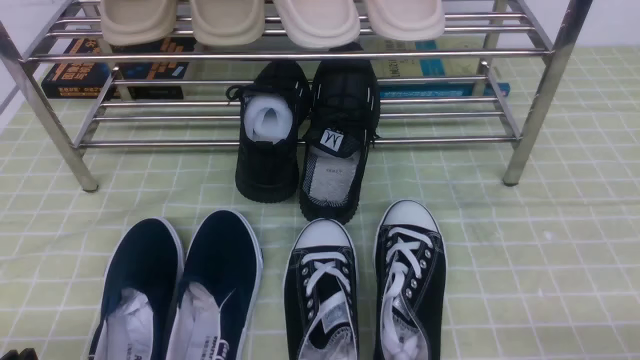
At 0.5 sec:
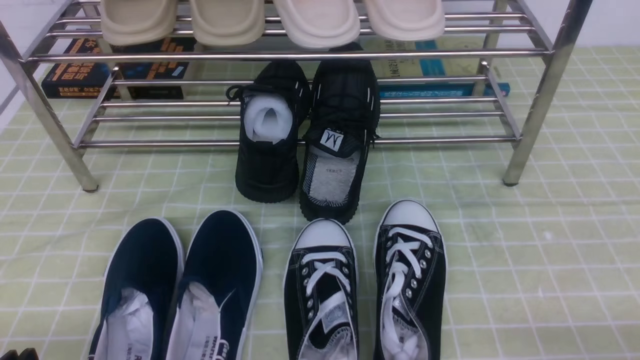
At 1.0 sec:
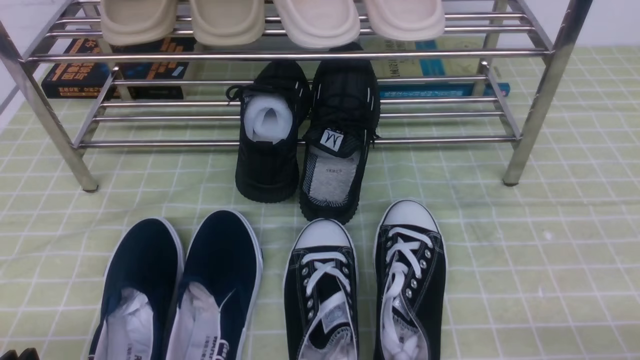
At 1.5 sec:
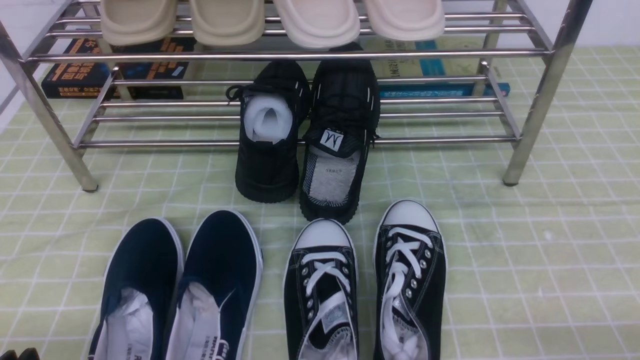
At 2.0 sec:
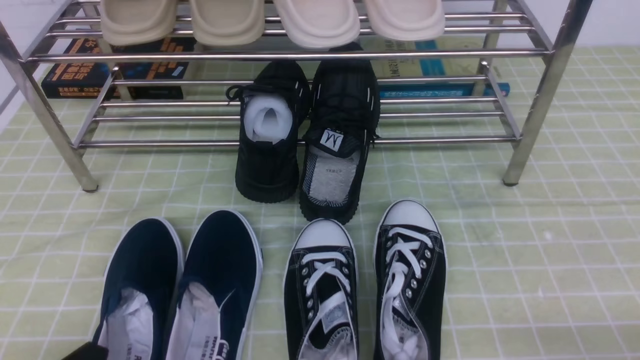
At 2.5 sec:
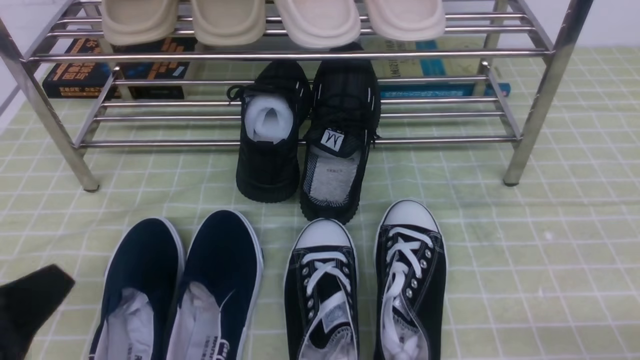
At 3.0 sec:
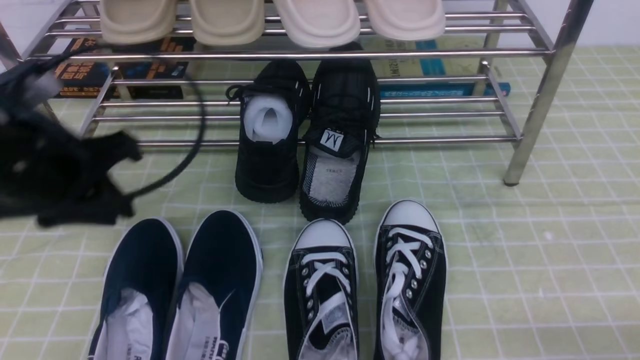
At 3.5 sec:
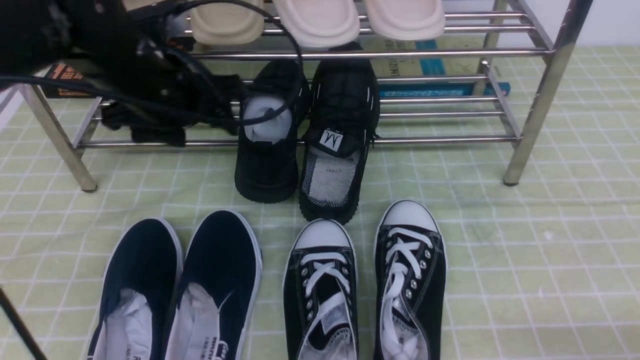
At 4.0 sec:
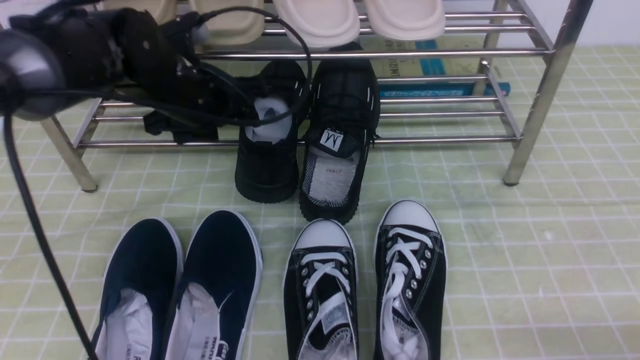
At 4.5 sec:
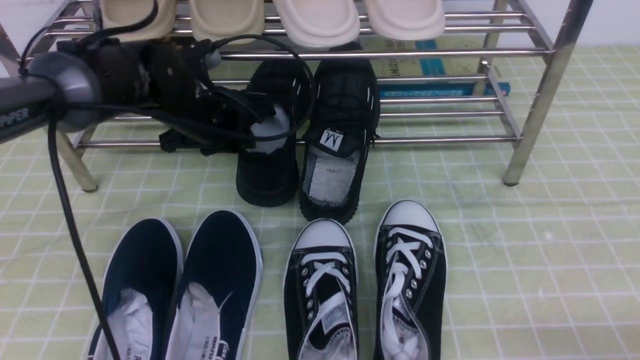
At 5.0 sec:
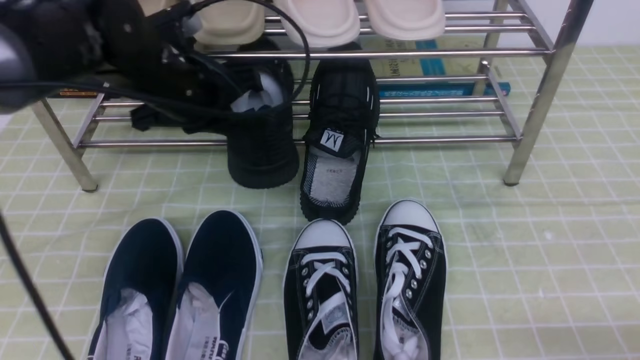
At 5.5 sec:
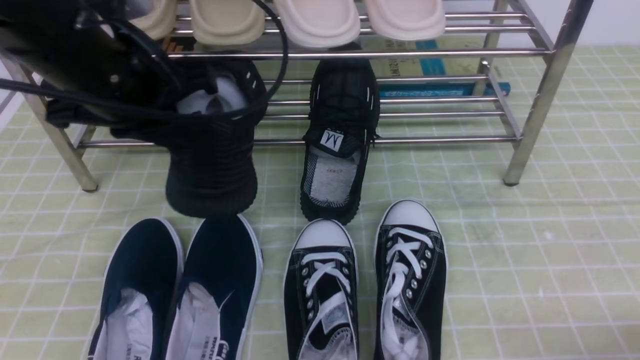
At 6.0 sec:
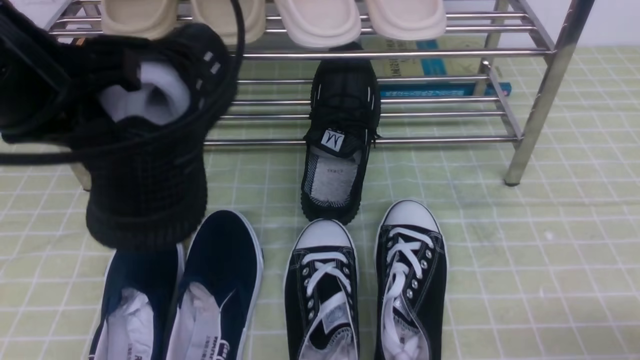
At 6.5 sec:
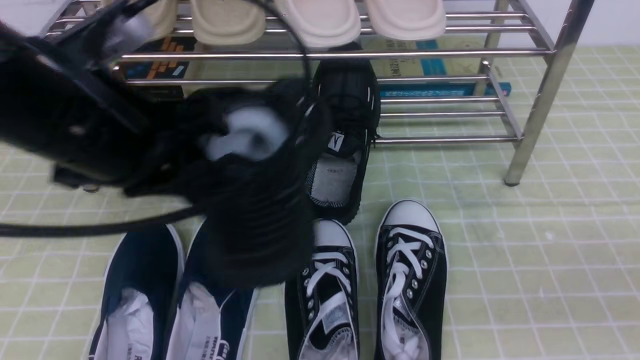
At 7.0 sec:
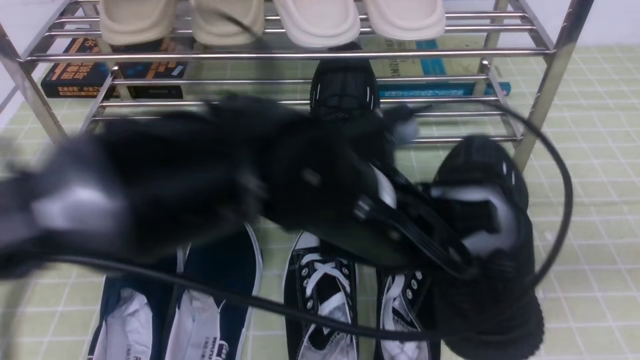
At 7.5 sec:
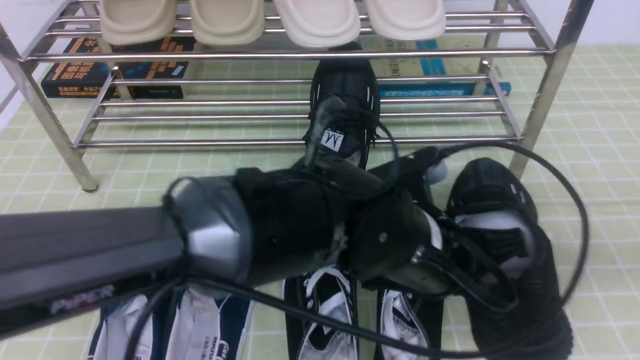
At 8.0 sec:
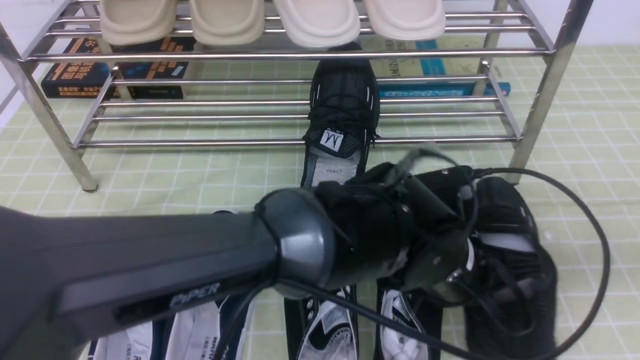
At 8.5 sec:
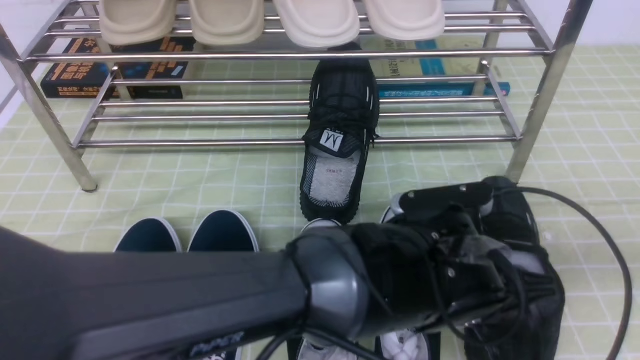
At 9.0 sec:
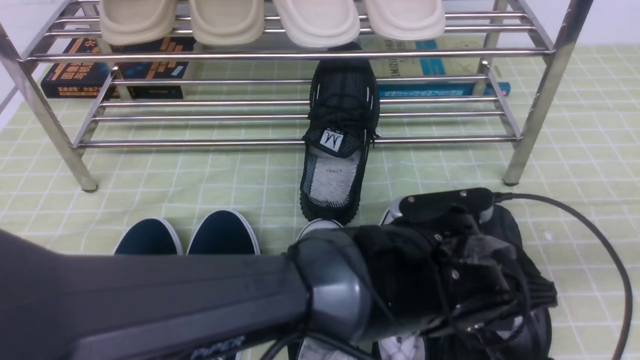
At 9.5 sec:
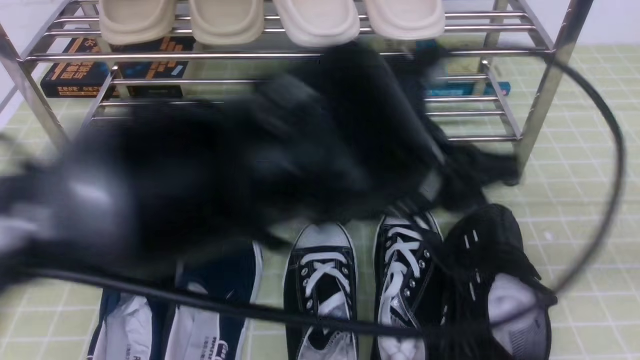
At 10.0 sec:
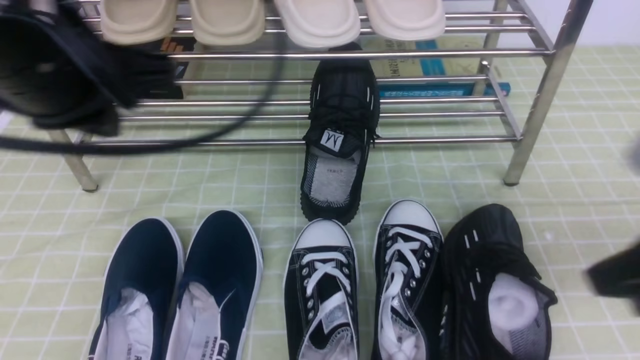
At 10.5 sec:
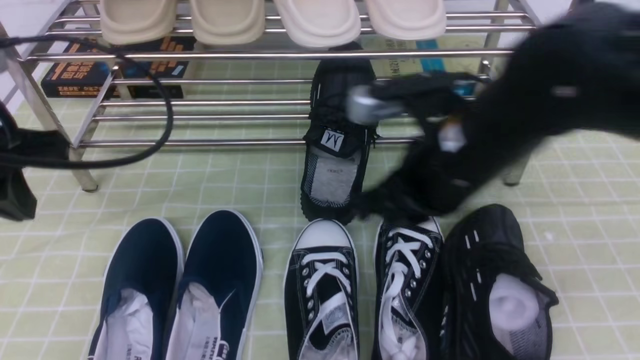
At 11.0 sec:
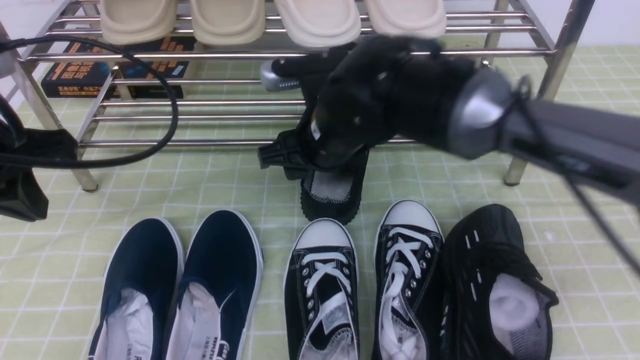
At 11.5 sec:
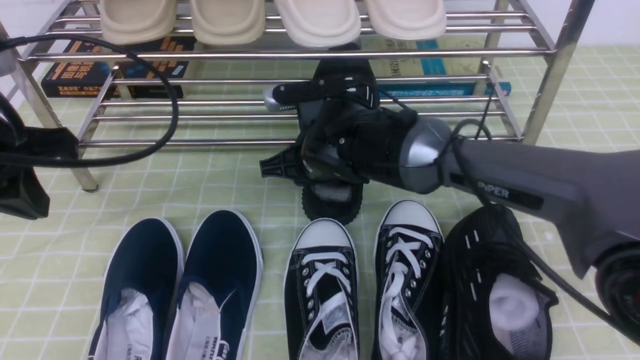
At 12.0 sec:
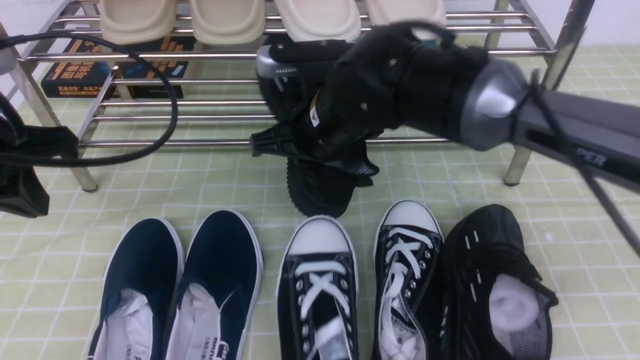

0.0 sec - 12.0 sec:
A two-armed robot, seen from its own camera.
Step, 0.0 sec - 4.5 sec: use the left arm to clamp a shoe in the middle of the shoe rack.
Step, 5.0 sec - 9.0 sec: Use your left arm to remove the clamped shoe from the shoe rack and put it down.
Step, 9.5 sec - 11.5 sec: use the right arm to clamp a shoe in the middle of the shoe rack.
2.0 sec - 4.0 sec: The left gripper goes approximately 35 cm forward, and opens.
4.0 sec - 6.0 sec: The left gripper is displaced backward and upward by about 20 cm, and closes its fingers.
6.0 sec - 8.0 sec: The left gripper goes some 35 cm to the right and downward. The right gripper goes about 15 cm upward, and closes its fingers.
8.0 sec - 10.0 sec: The left gripper heads to the left and upward, covering roughly 35 cm, and opens, then closes once more; the right gripper shifts approximately 10 cm to the left and forward.
10.0 sec - 12.0 sec: The left gripper is displaced to the left and downward by some 10 cm. The right gripper moves to the left and forward, about 30 cm, and opens, then closes again.

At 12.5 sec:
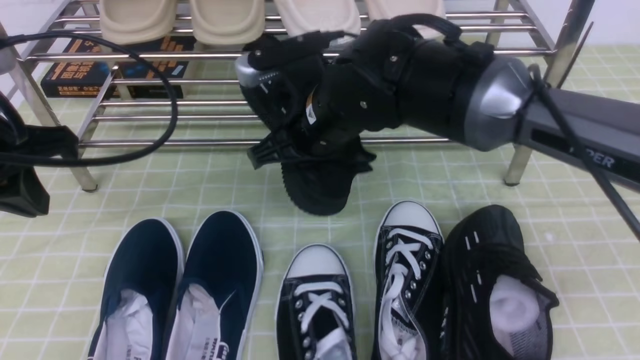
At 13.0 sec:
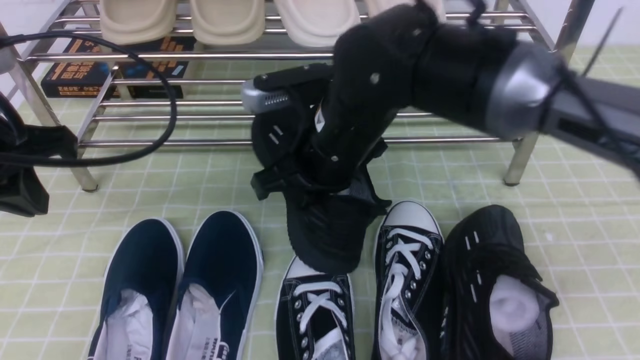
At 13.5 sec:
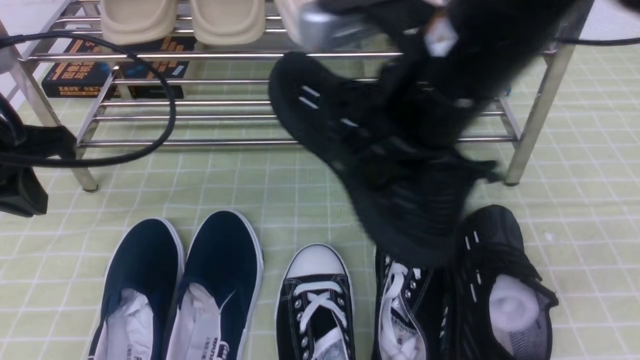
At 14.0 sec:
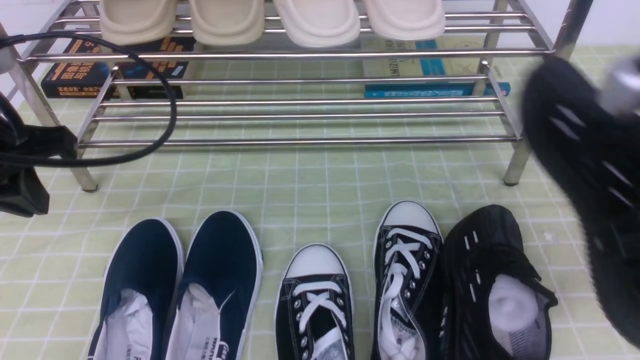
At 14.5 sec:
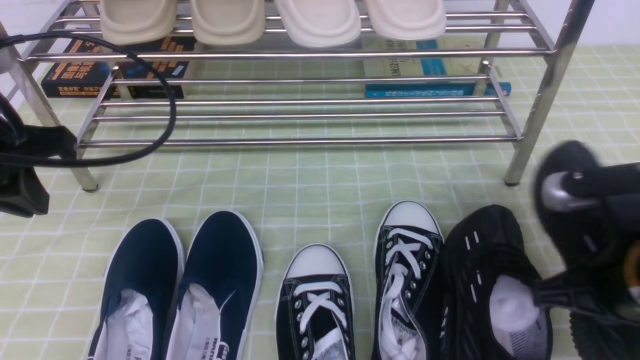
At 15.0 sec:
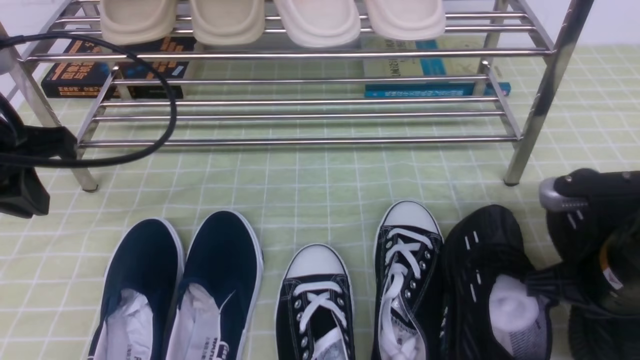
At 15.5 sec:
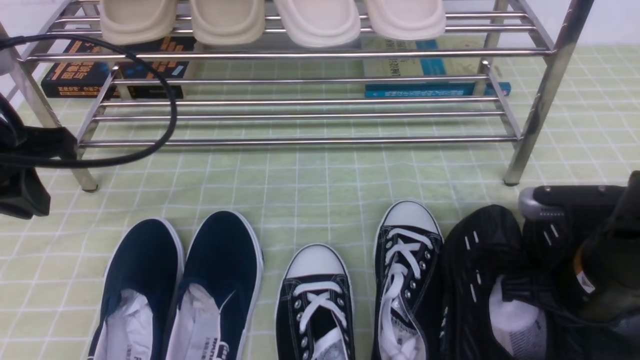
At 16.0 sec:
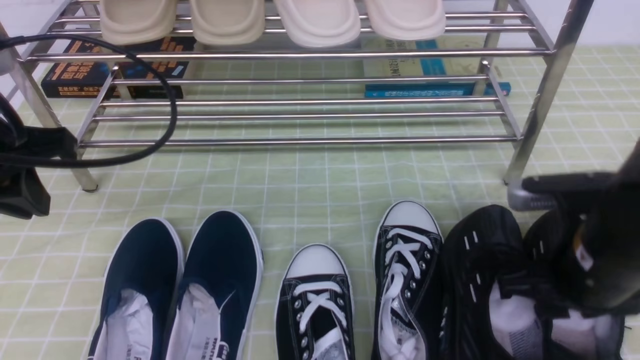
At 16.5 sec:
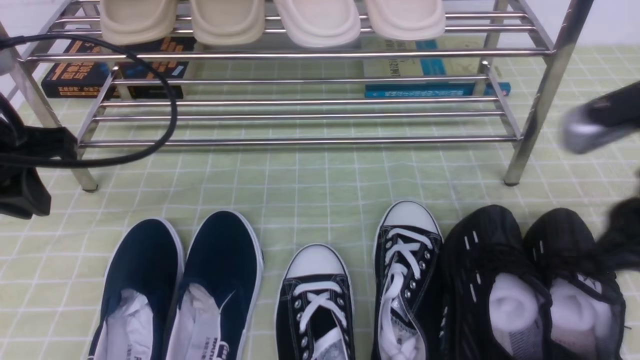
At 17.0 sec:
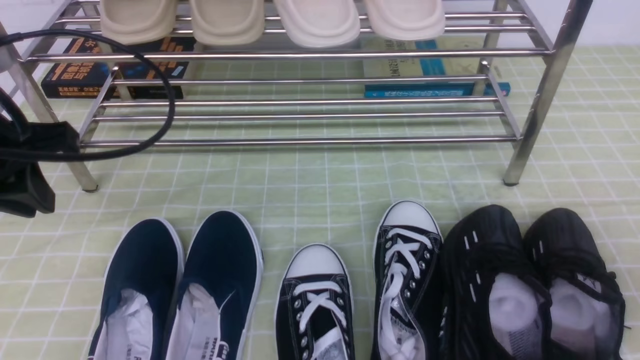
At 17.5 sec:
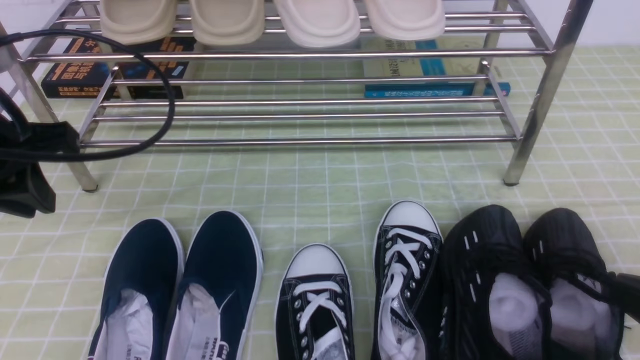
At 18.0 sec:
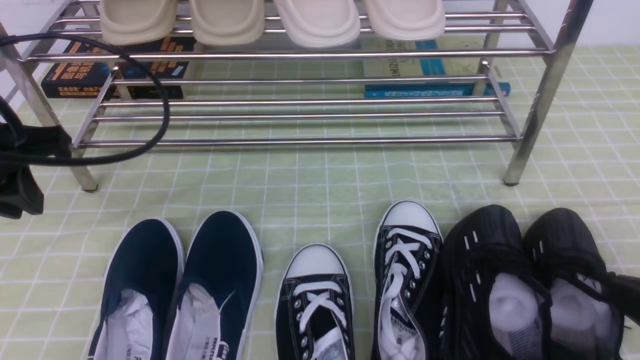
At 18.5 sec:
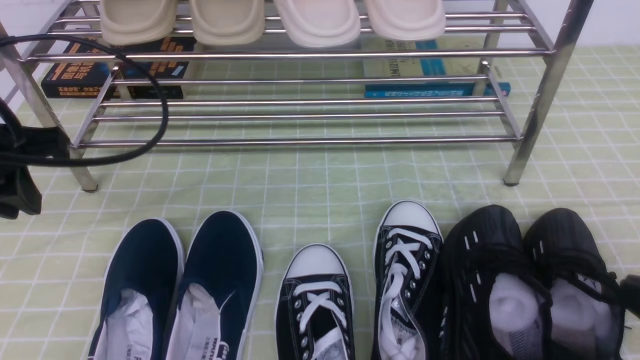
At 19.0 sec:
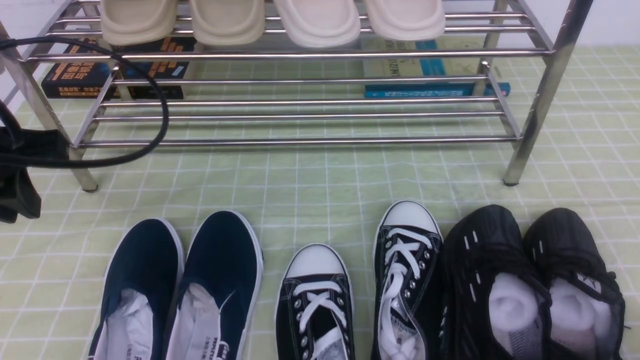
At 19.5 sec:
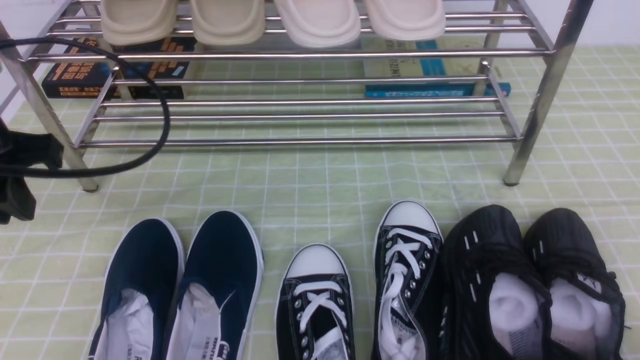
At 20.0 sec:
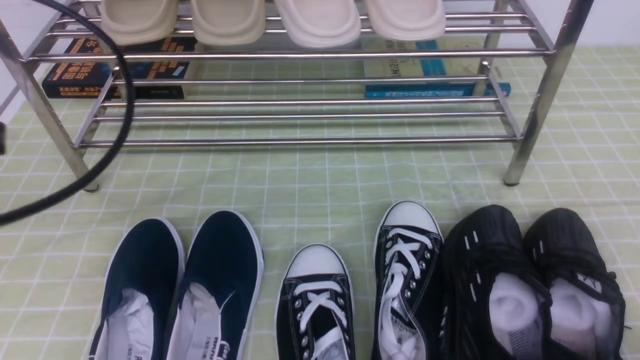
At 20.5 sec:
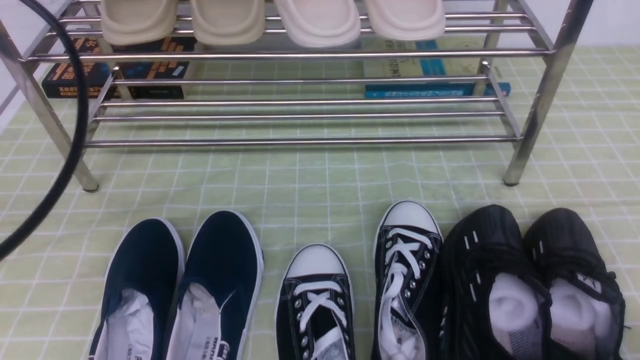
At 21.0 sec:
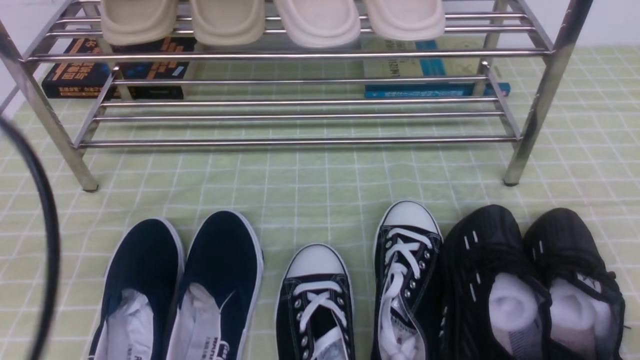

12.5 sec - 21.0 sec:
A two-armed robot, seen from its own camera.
Step, 12.5 sec - 16.0 sec: use the right arm to take out the clamped shoe from the shoe rack and put it down.
12.5 sec - 14.5 sec: The right gripper goes approximately 25 cm to the right and backward.
14.5 sec - 16.5 sec: The right gripper goes approximately 10 cm upward, and opens, then closes again.
16.5 sec - 19.0 sec: The right gripper goes some 20 cm downward, backward and to the right, and closes up.
19.0 sec - 21.0 sec: The left gripper heads backward, covering about 20 cm.
